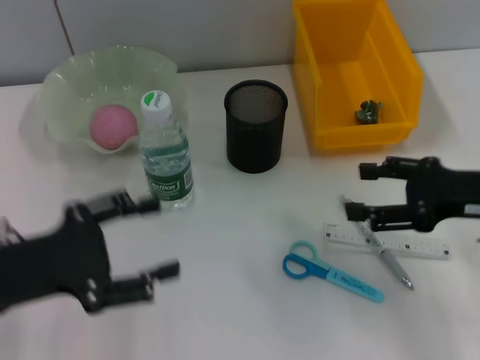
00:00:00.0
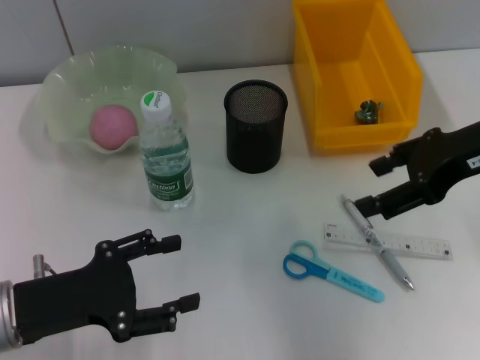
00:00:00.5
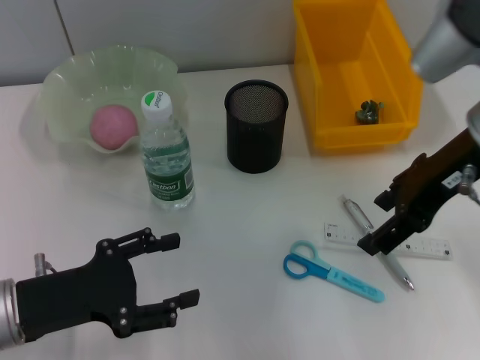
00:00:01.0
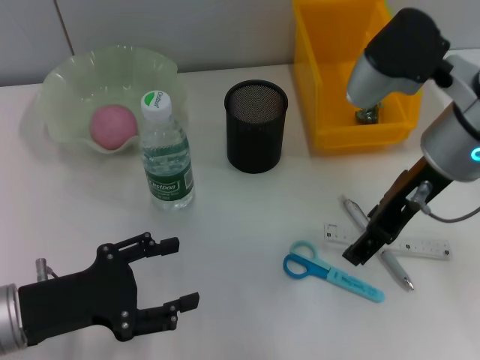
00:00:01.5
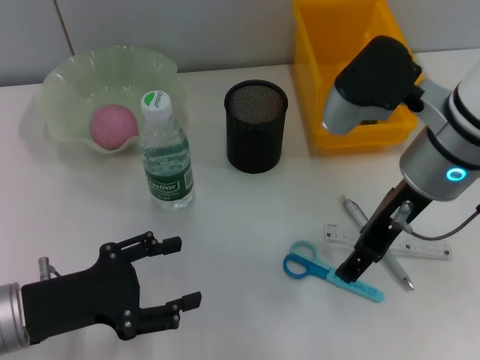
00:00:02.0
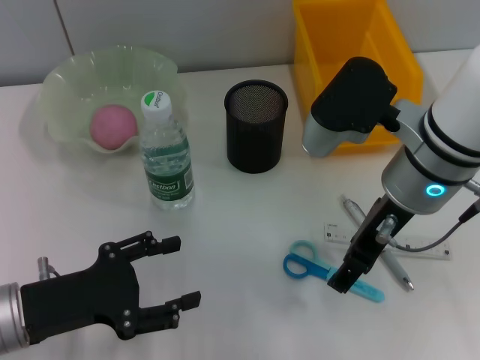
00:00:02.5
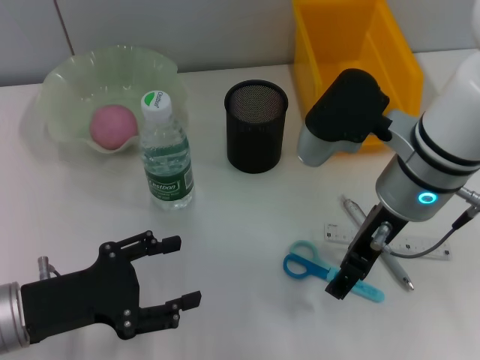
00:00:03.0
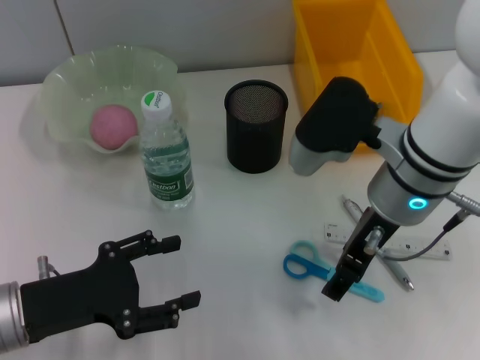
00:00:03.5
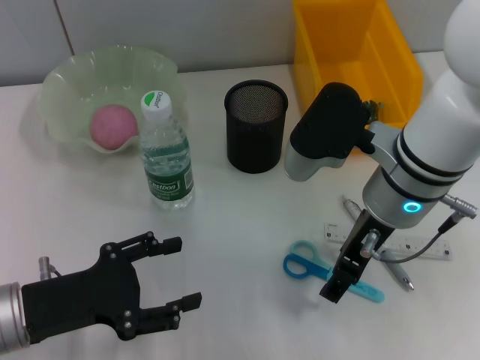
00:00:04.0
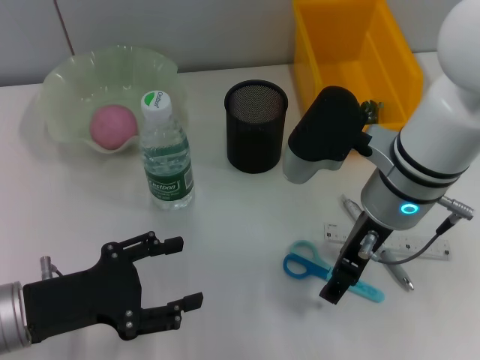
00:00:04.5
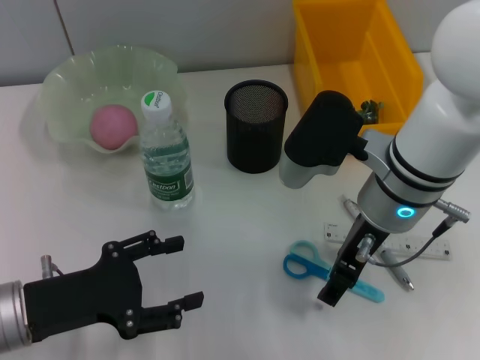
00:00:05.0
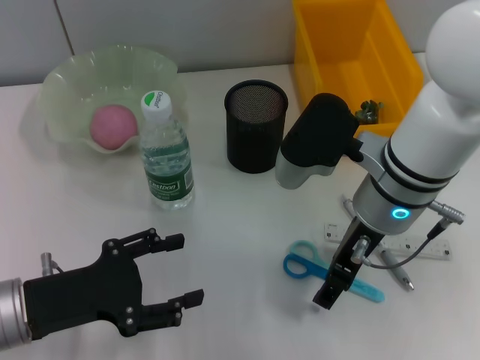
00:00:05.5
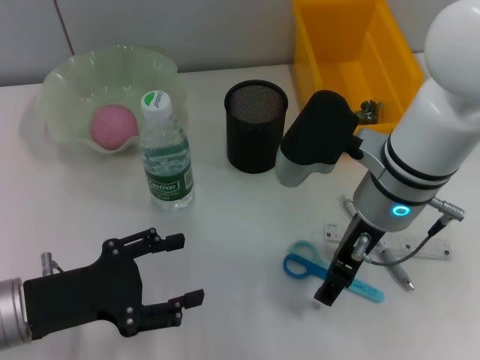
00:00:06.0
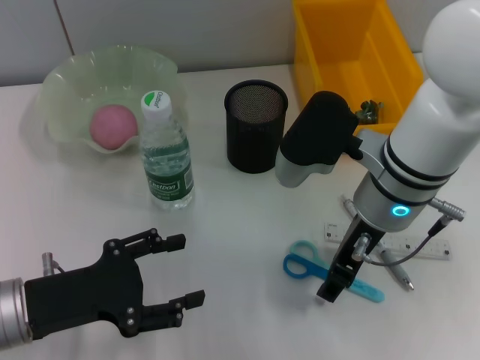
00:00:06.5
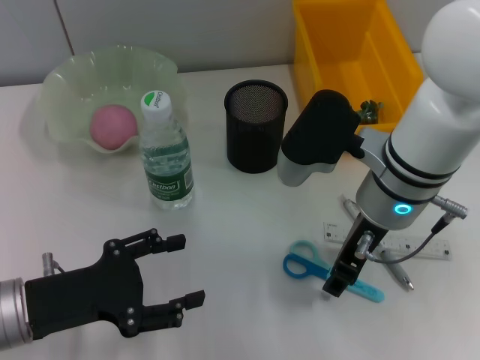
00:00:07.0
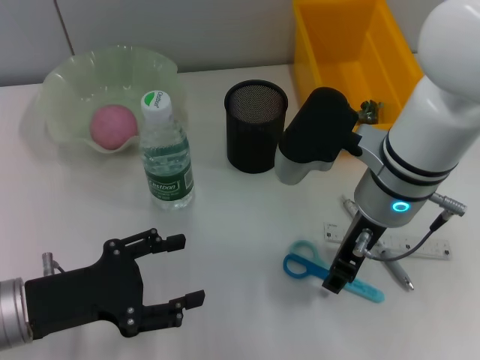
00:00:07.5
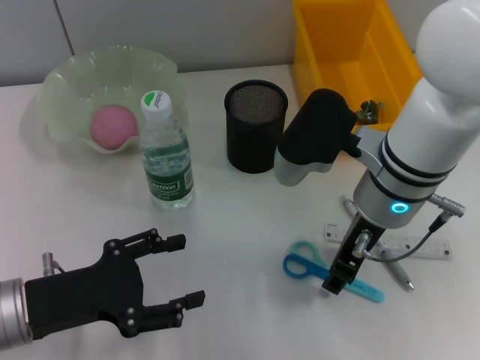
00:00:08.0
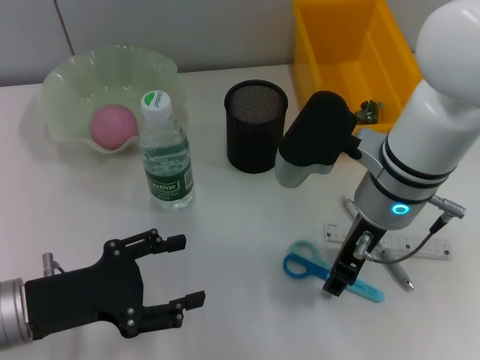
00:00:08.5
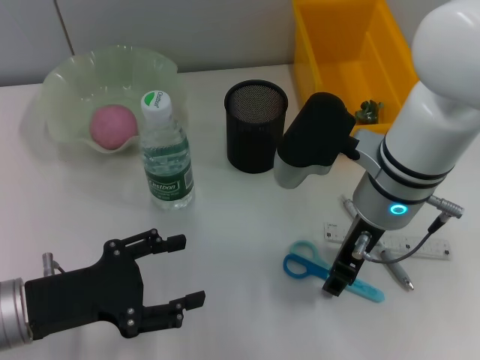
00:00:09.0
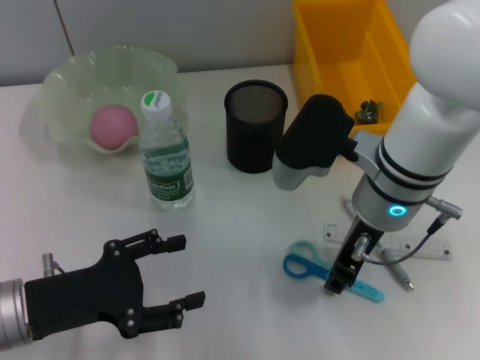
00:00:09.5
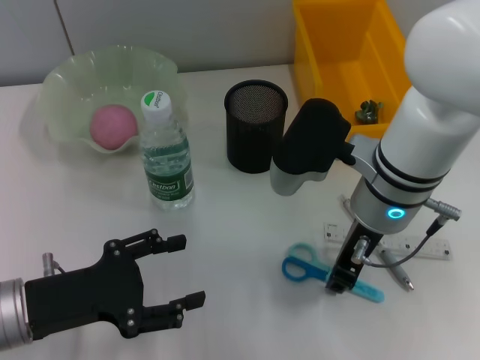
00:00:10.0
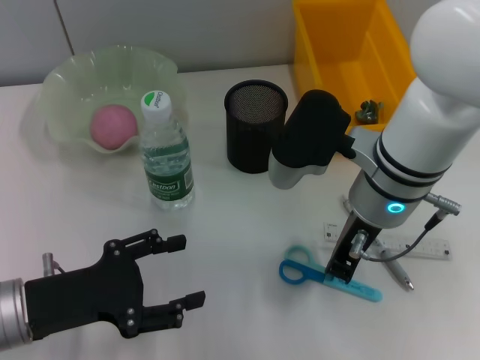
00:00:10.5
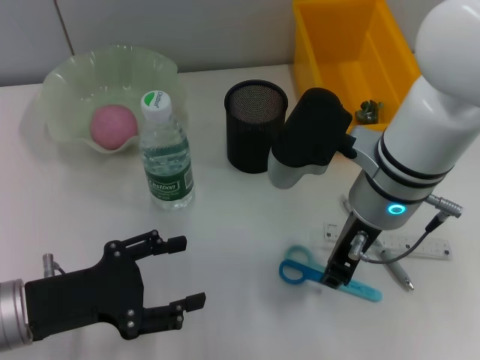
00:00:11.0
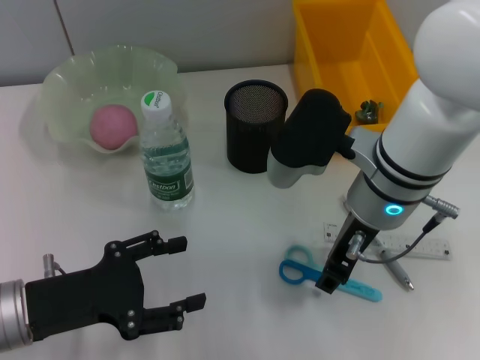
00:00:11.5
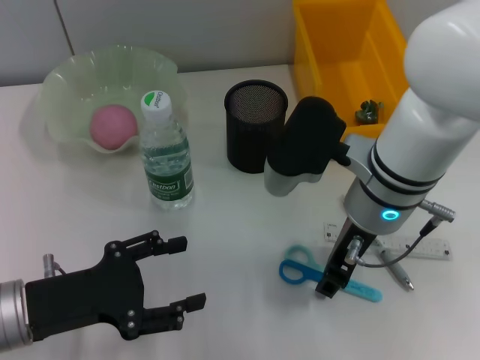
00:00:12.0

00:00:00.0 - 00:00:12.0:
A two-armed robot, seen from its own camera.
00:00:00.0 - 00:00:02.0: The right gripper moves to the left and upward, about 15 cm, while the left gripper travels downward by some 5 cm.
00:00:02.0 - 00:00:04.0: There are only small adjustments of the grippers.
00:00:04.0 - 00:00:06.0: The two grippers keep their place.
00:00:06.0 - 00:00:08.0: The right gripper closes up.
00:00:08.0 - 00:00:12.0: Both grippers stay about where they are.

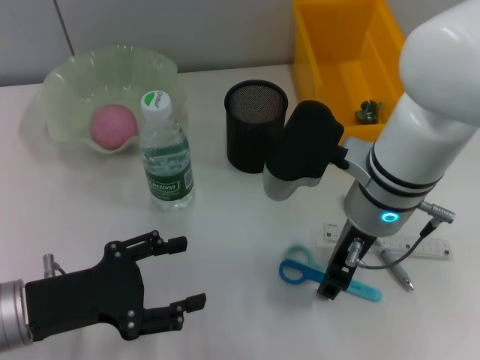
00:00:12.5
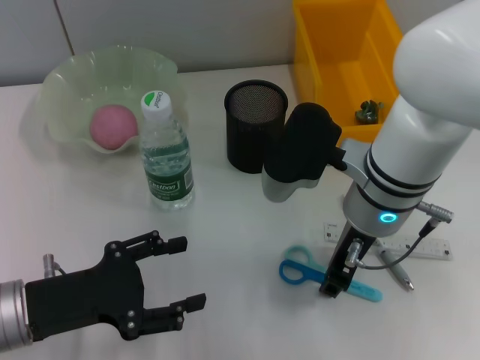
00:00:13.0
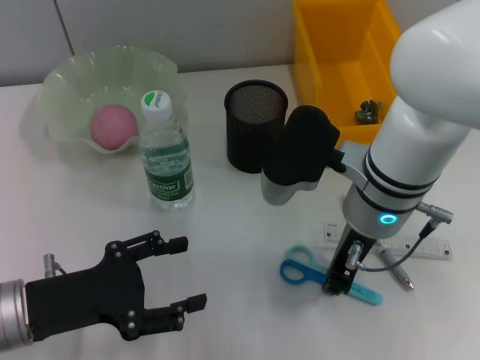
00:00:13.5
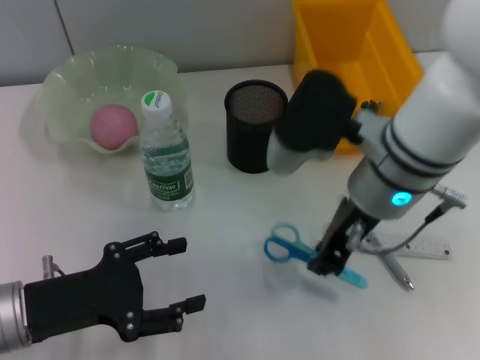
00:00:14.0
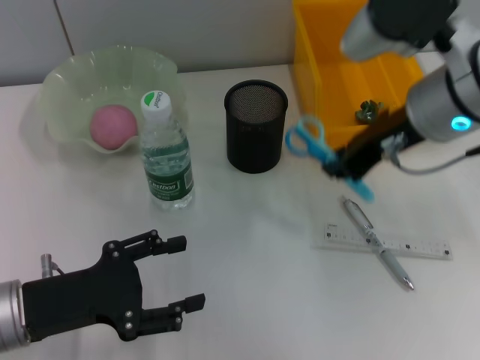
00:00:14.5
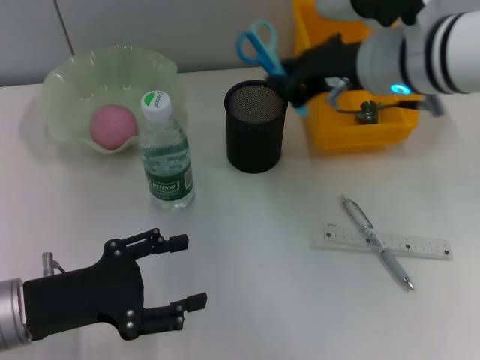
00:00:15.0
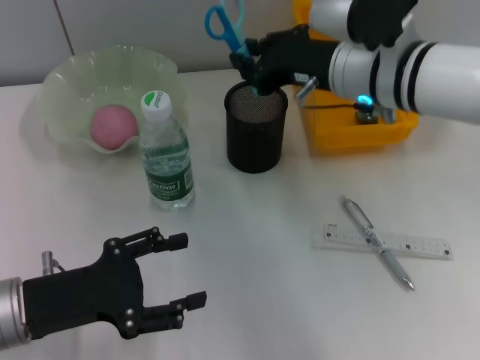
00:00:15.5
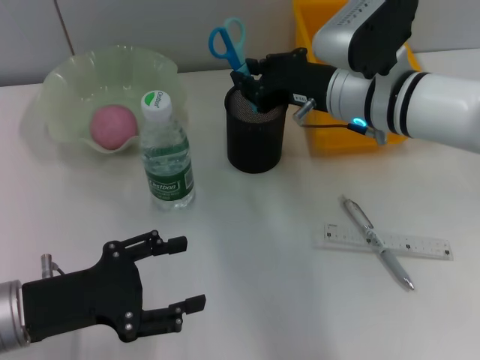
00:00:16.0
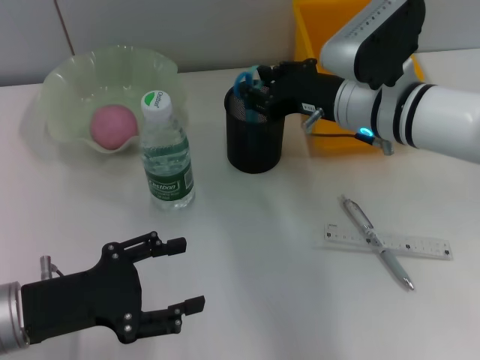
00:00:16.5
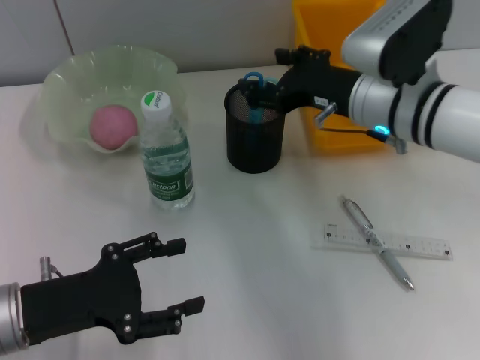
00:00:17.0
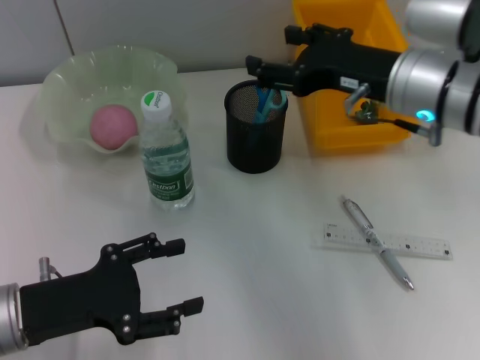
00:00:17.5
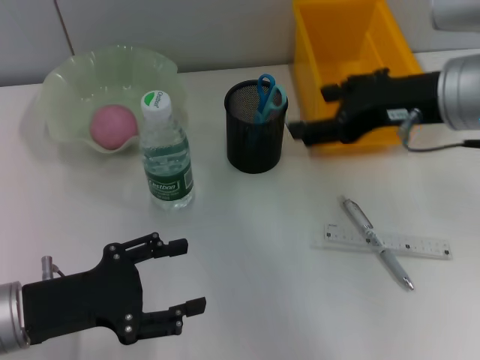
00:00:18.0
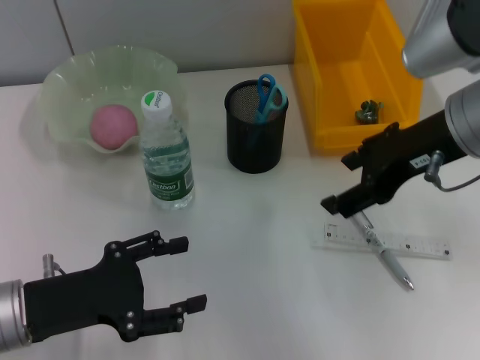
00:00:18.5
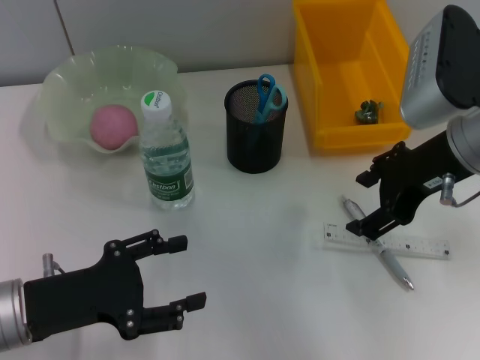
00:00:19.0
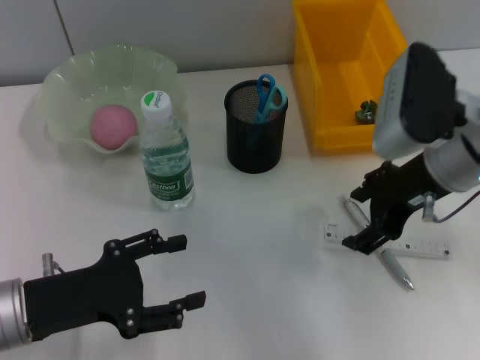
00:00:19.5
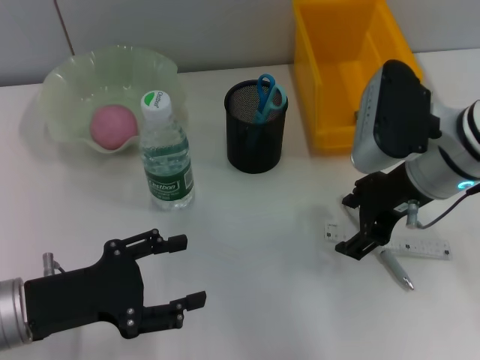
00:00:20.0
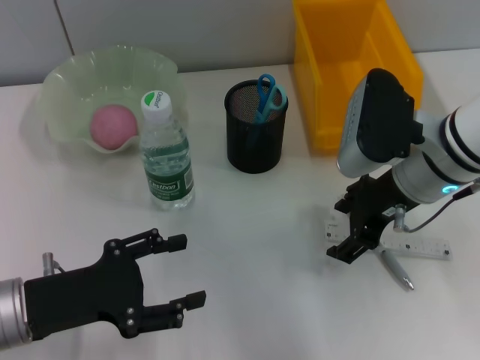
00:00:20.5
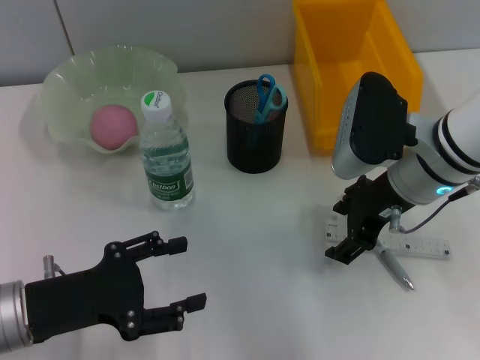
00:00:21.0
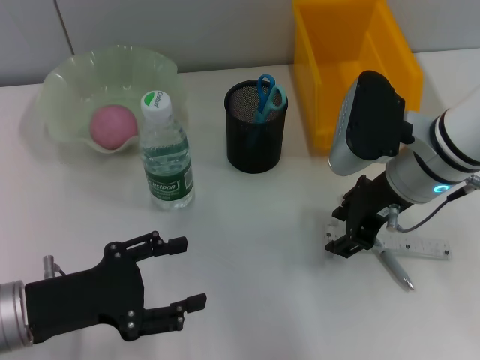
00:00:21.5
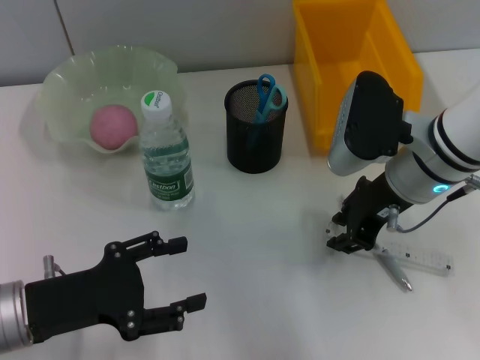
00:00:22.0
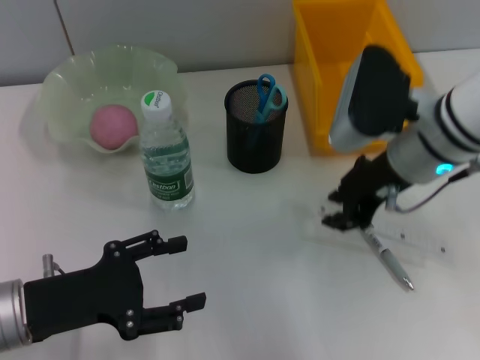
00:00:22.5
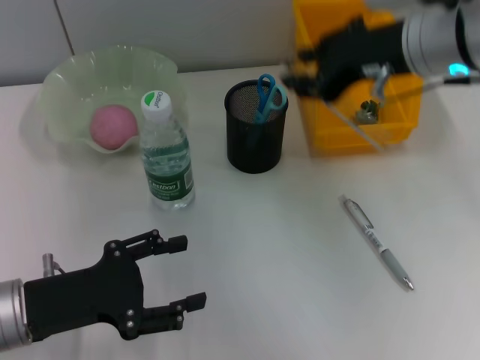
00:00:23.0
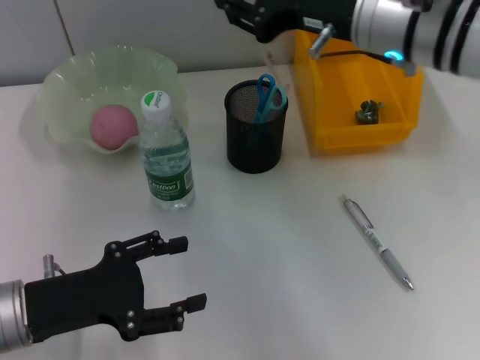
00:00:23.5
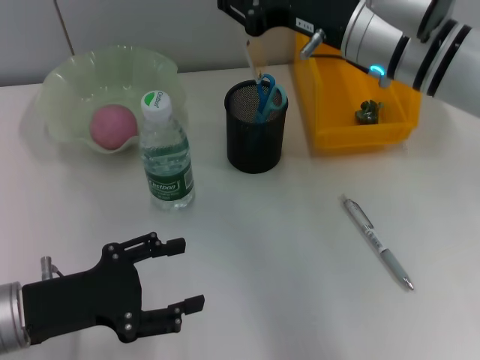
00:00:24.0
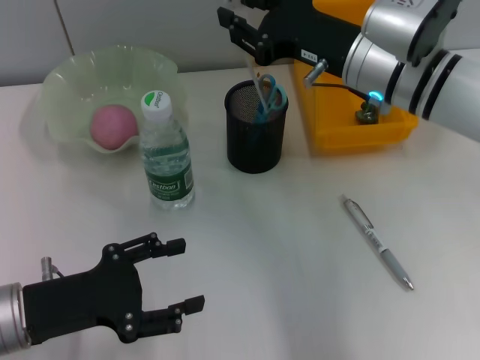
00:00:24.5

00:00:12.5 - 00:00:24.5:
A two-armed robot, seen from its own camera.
Step, 00:00:13.5 - 00:00:16.5: Place the blue scissors into the pen holder with the right hand.
Step, 00:00:17.0 - 00:00:22.0: Grab the ruler with the right hand.
00:00:12.5 - 00:00:14.5: The right gripper goes roughly 10 cm upward and to the right, and closes up.
00:00:14.5 - 00:00:16.5: The right gripper heads downward, covering roughly 10 cm.
00:00:16.5 - 00:00:18.5: The right gripper goes some 10 cm upward and backward, and opens its fingers.
00:00:18.5 - 00:00:20.5: The right gripper shifts some 10 cm downward.
00:00:20.5 - 00:00:22.5: The right gripper closes.
00:00:22.5 - 00:00:24.5: The right gripper reaches about 10 cm upward, then returns.

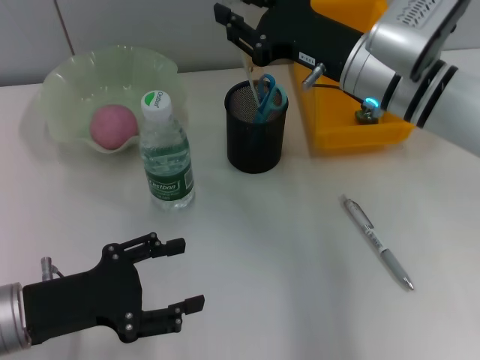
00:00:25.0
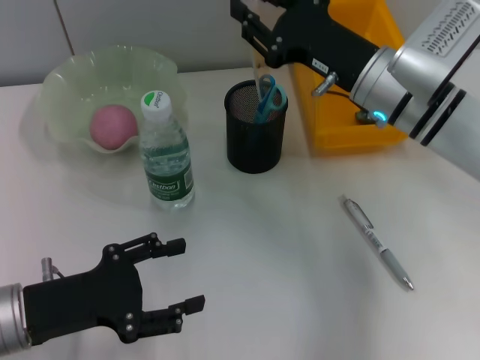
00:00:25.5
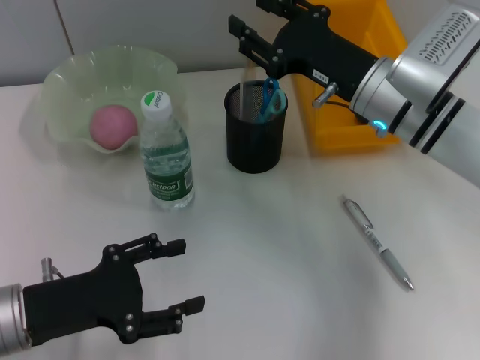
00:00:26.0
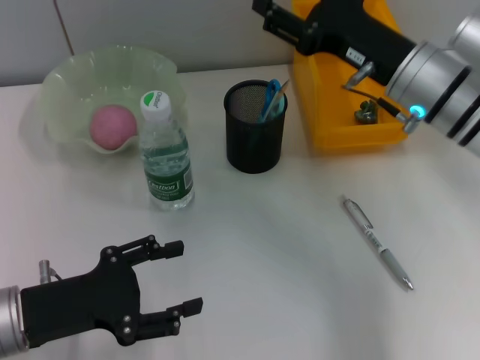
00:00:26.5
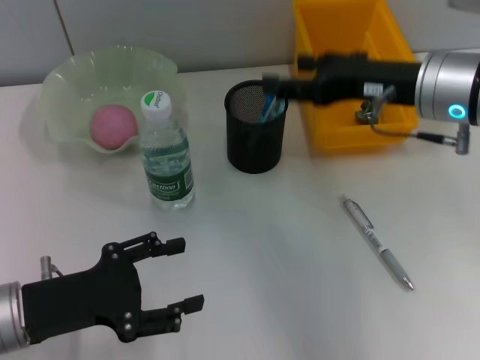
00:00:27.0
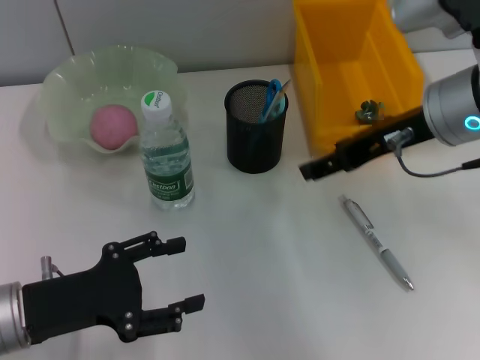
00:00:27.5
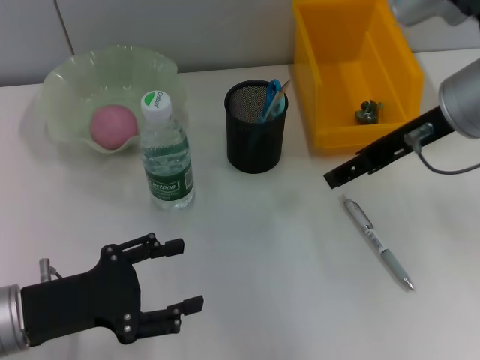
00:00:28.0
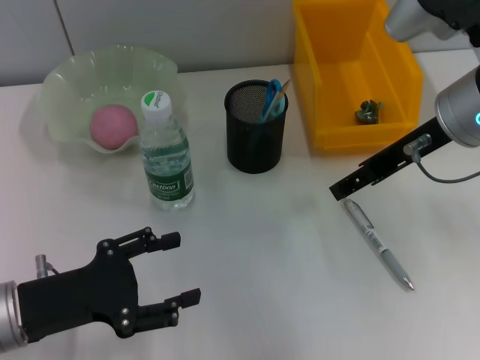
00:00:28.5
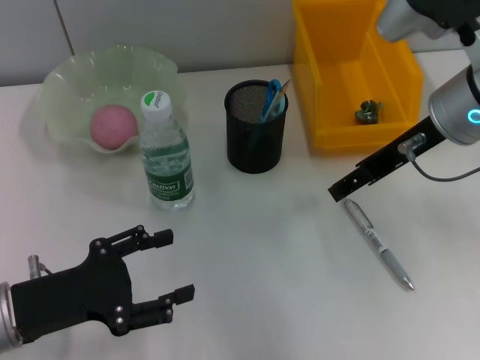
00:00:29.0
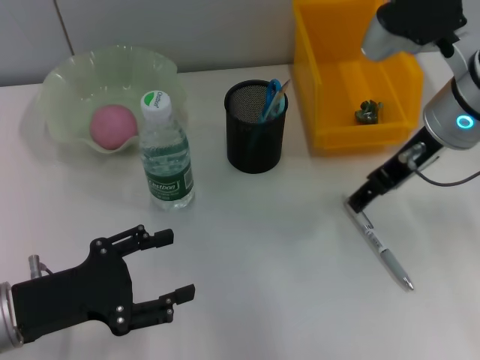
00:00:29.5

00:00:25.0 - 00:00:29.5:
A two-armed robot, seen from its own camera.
00:00:25.0 - 00:00:27.0: The right gripper changes place by approximately 5 cm, and opens.
